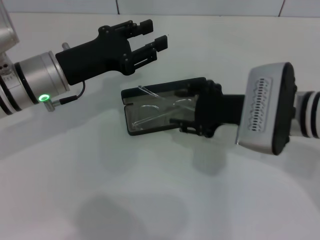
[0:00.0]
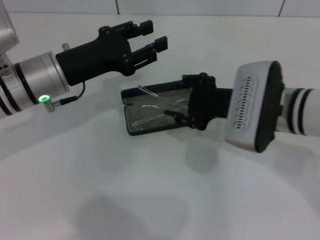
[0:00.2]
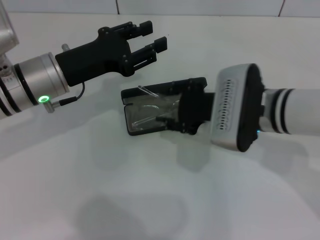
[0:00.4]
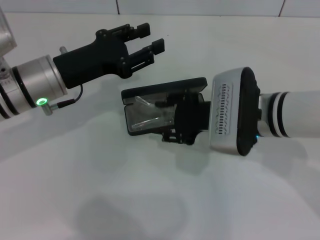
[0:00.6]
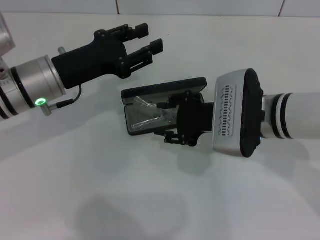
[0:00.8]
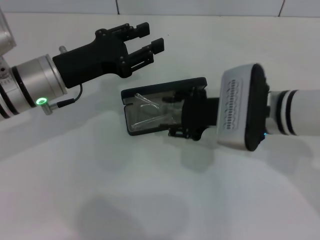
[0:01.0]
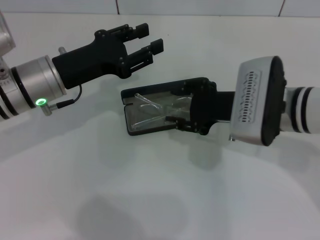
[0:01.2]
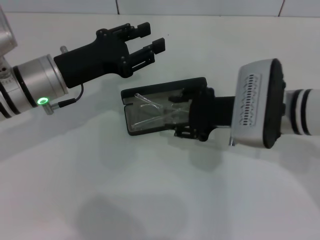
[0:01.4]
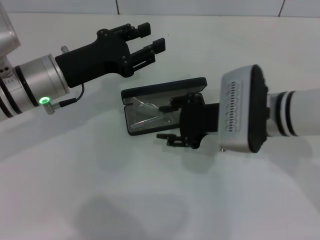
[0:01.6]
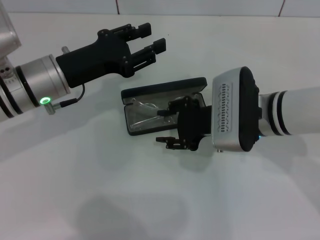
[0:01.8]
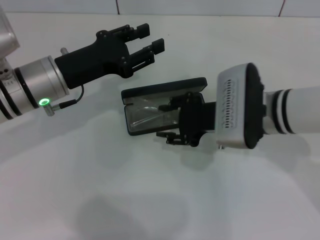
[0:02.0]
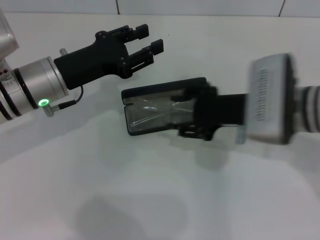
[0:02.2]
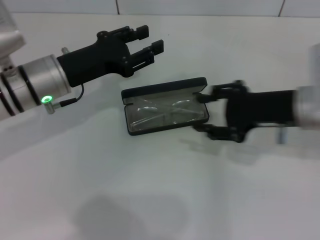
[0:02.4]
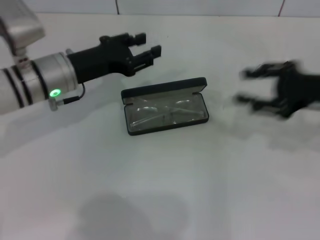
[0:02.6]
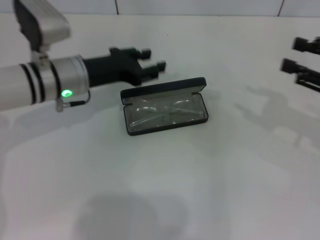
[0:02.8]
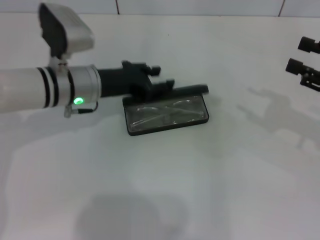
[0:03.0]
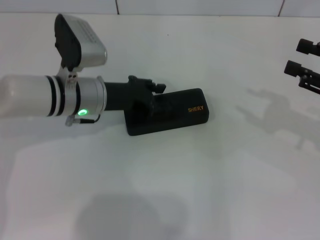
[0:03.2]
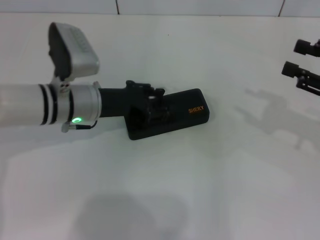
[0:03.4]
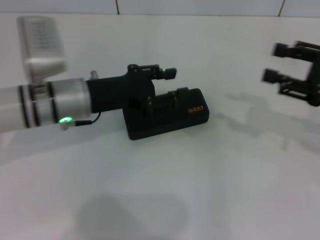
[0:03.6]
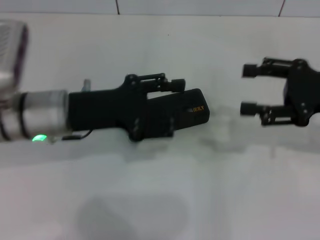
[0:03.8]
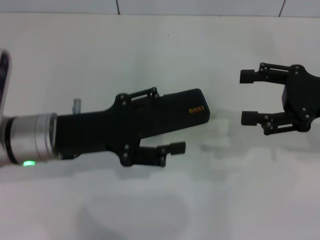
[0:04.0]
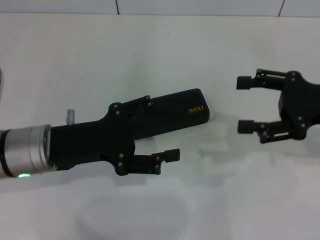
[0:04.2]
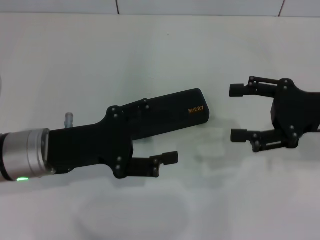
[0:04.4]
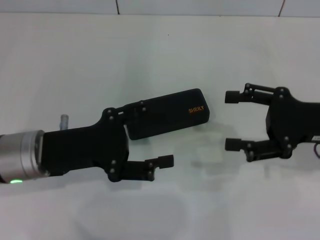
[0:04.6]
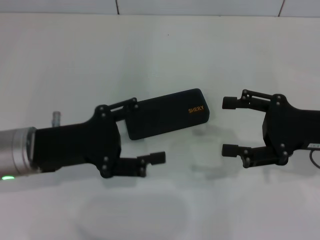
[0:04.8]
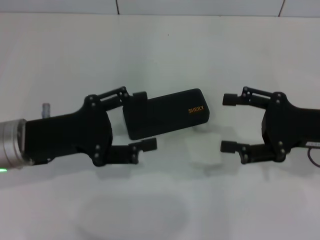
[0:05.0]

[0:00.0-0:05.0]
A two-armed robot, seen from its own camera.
Step, 0:02.2 to 0:03.2: Close the glasses case with your left hand.
0:00.0 to 0:01.6: The grippers make only small movements.
0:01.6 to 0:03.4: The right gripper heads to the right, covering some 20 cm, while the left gripper moves about 5 cm.
0:03.4 to 0:05.0: The right gripper heads to the left, covering roughly 5 cm, and opens; the left gripper travels backward and to the left by some 10 cm, and opens up.

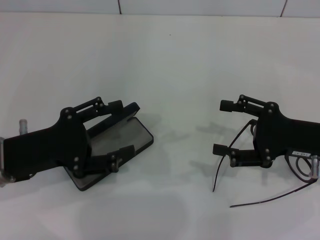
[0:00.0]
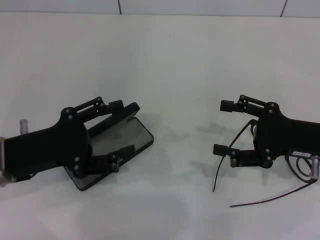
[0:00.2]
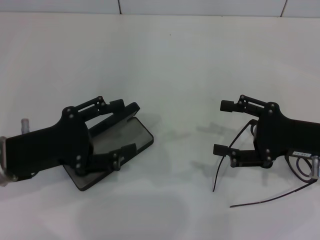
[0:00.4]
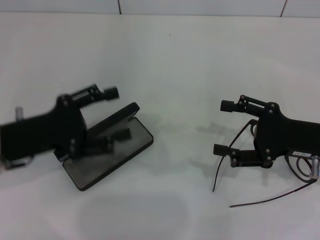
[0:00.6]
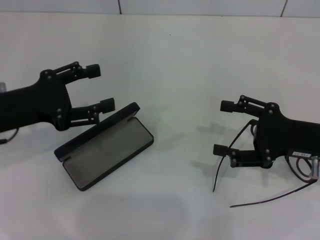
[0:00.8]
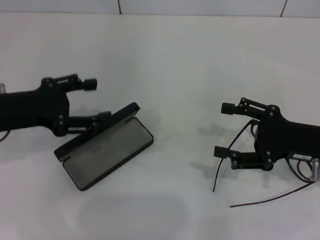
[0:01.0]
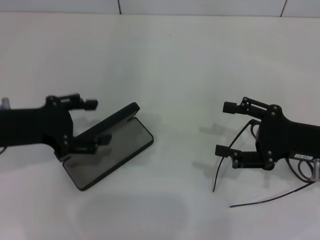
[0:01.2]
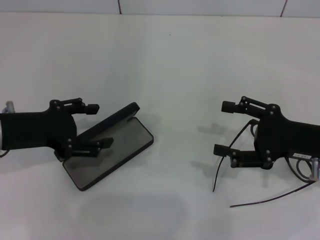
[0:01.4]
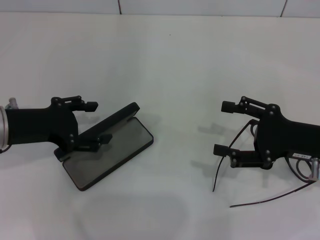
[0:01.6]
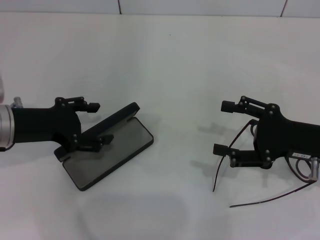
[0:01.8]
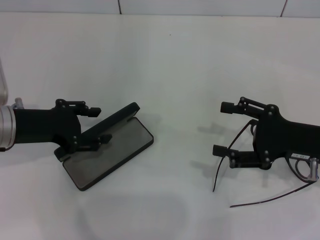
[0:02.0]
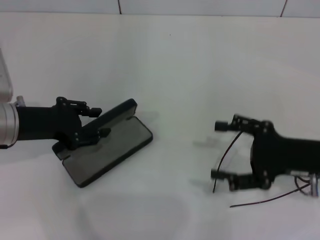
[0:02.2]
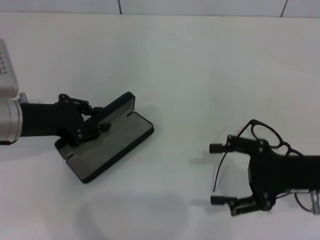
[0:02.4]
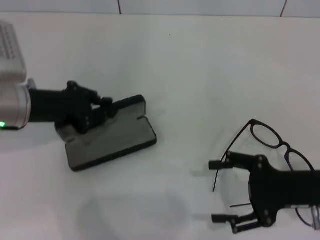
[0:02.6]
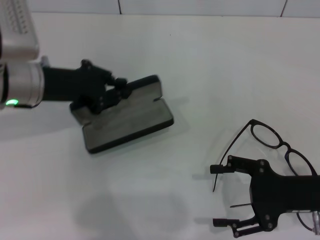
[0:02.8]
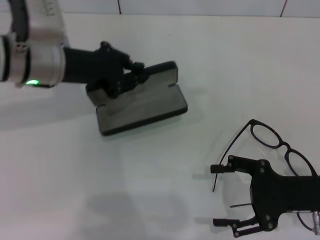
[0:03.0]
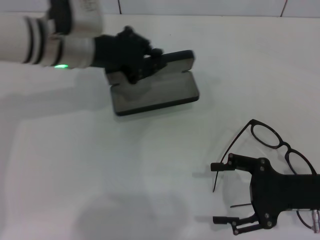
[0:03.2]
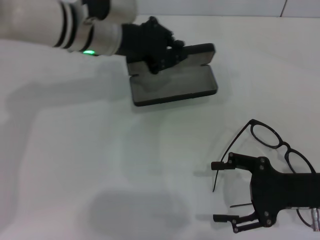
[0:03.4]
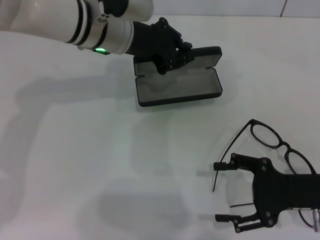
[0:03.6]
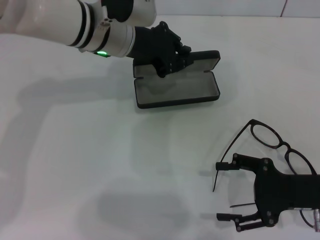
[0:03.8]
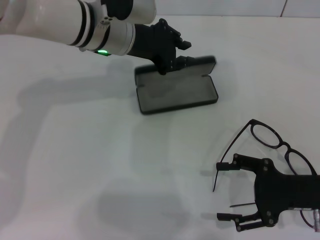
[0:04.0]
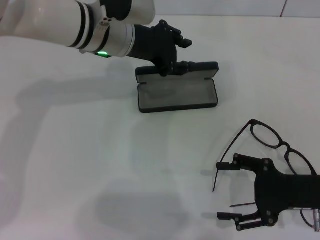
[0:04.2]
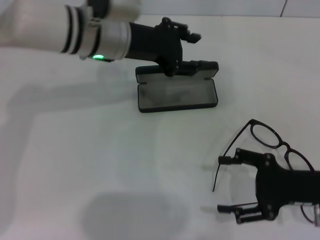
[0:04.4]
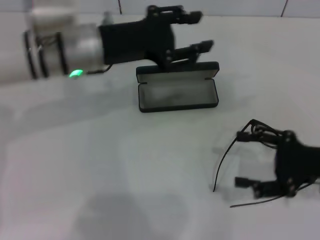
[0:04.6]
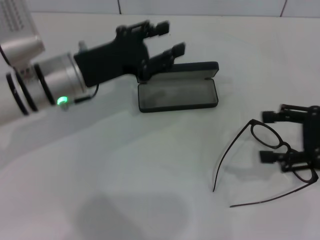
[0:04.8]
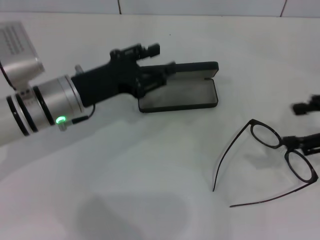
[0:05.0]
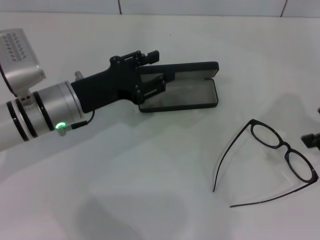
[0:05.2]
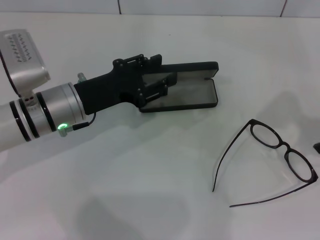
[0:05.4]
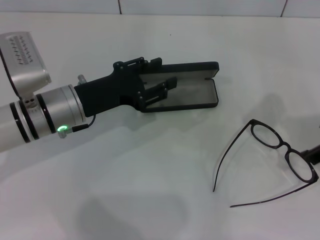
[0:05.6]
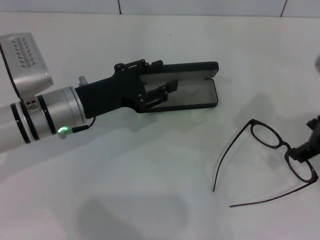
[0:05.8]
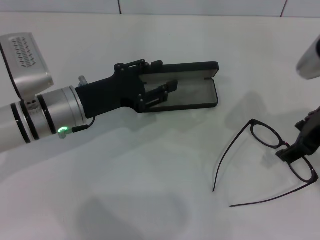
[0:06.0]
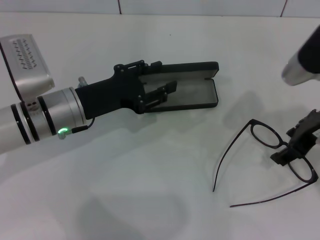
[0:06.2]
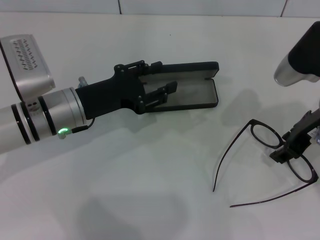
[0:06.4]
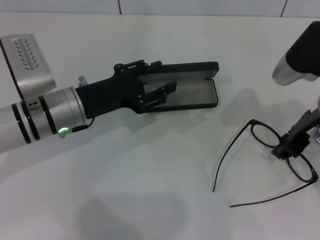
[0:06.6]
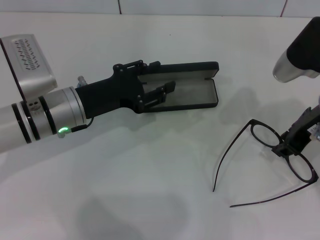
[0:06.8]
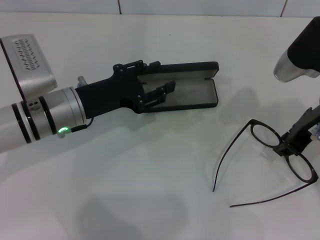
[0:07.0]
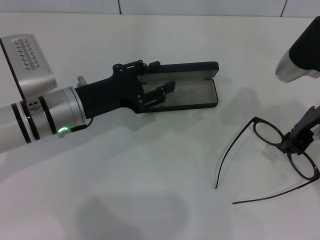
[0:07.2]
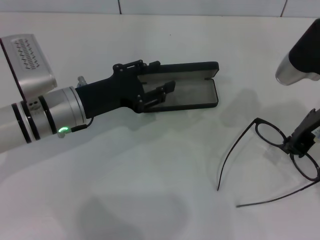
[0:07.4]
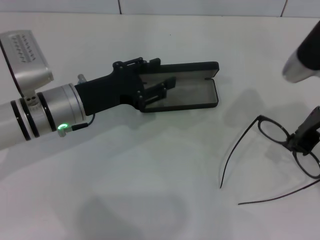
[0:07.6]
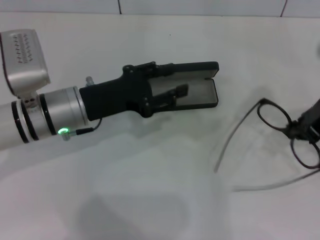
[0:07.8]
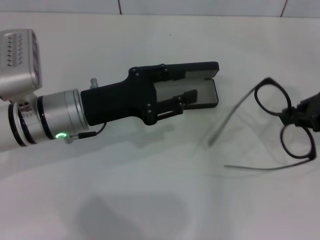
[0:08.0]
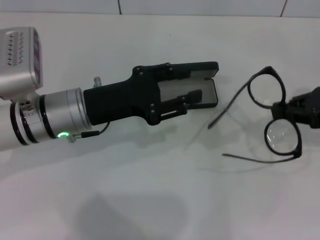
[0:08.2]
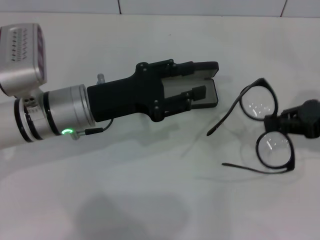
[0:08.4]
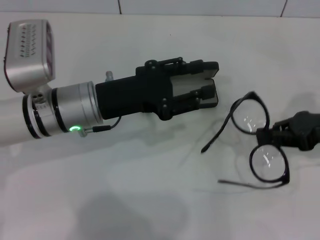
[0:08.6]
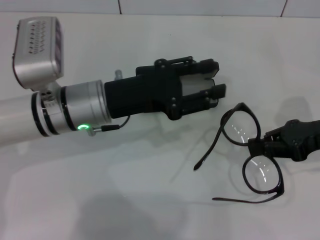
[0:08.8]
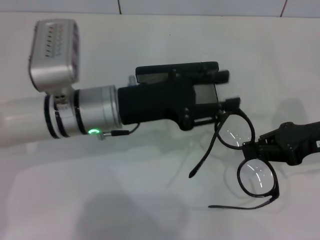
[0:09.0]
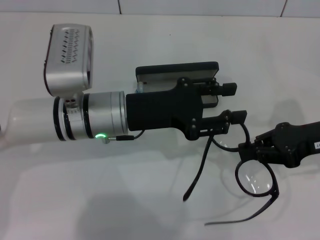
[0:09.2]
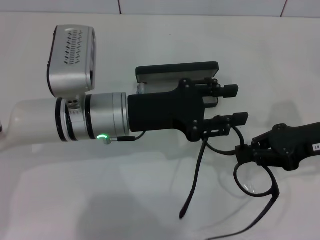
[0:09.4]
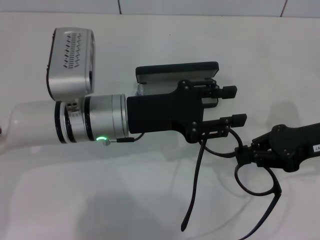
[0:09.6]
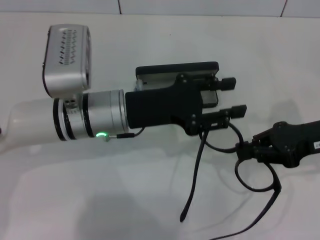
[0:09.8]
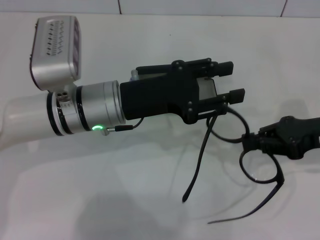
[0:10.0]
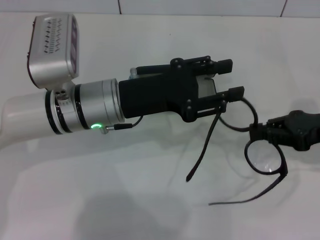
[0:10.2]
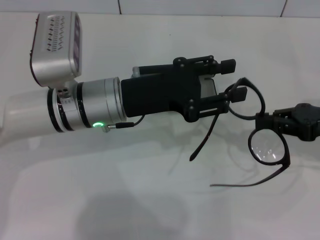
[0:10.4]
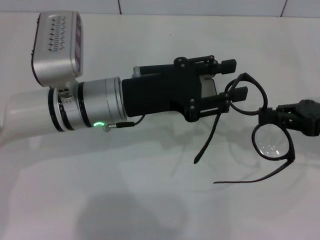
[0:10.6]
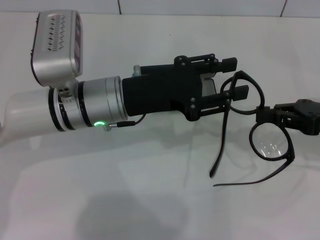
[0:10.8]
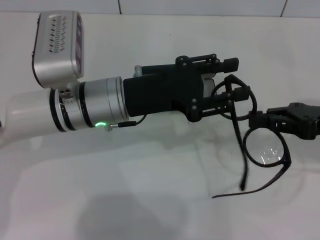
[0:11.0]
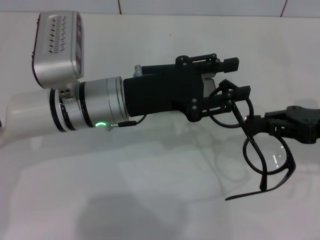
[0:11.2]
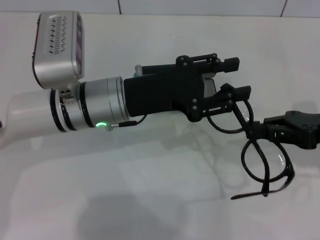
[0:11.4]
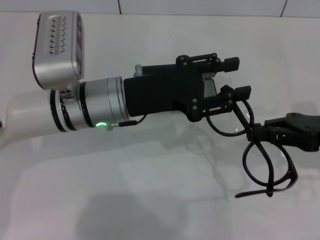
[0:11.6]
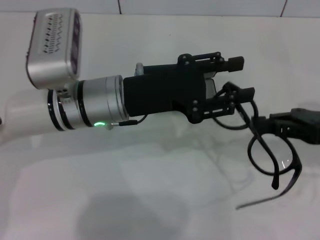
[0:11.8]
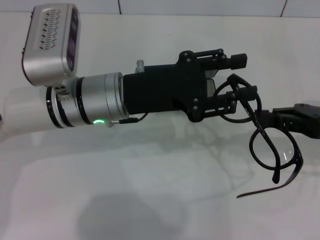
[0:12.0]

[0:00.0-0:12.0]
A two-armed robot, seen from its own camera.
Step, 0:00.0 to 0:02.4: Grab the glasses case with your left hand.
Step, 0:02.6 to 0:04.0: Place the glasses case in the center of the table with your left hand.
Step, 0:04.2 to 0:07.4: Grab the eyeglass frame with your right hand.
0:00.0 to 0:01.6: The left gripper changes place by roughly 5 cm.
0:01.6 to 0:03.0: The left gripper shifts some 10 cm forward and to the right, and closes its fingers.
0:03.0 to 0:04.4: The left gripper travels to the right by about 10 cm.
0:04.4 to 0:06.0: The right gripper shifts approximately 15 cm upward and forward; the left gripper goes about 15 cm downward, backward and to the left.
0:06.0 to 0:07.6: The right gripper closes its fingers.
0:07.6 to 0:09.0: The right gripper shifts about 10 cm to the right and downward, while the left gripper travels to the right by about 5 cm.
0:09.0 to 0:10.4: The grippers stay close to where they were, moving slightly.
0:10.4 to 0:12.0: The grippers stay close to where they were, moving slightly.

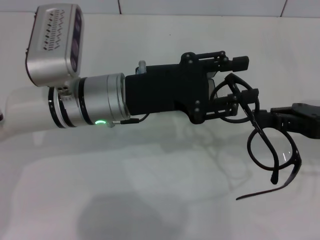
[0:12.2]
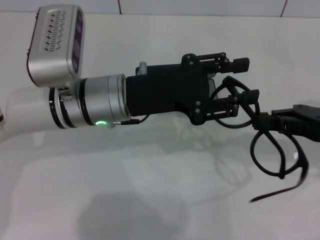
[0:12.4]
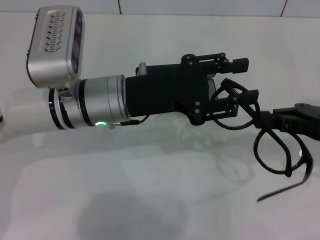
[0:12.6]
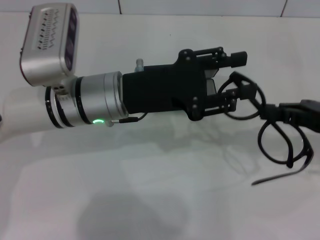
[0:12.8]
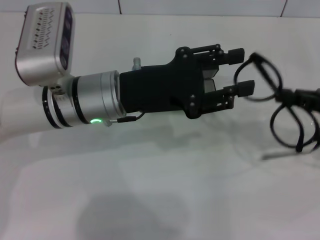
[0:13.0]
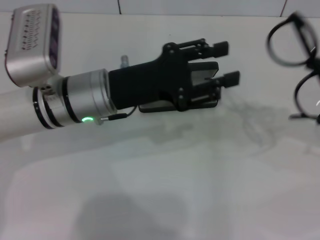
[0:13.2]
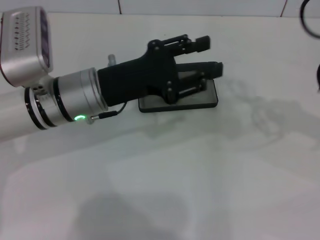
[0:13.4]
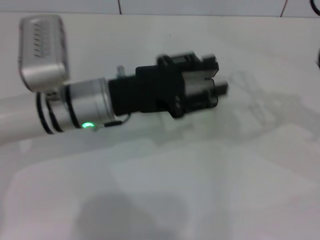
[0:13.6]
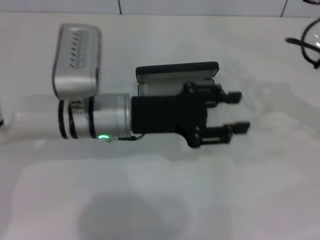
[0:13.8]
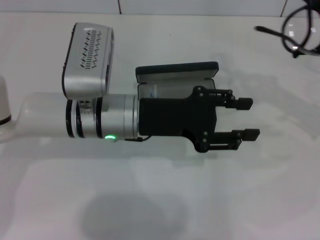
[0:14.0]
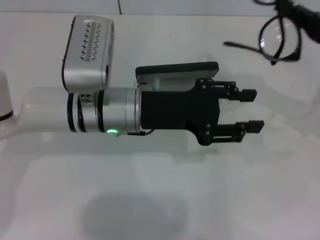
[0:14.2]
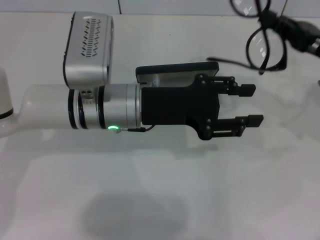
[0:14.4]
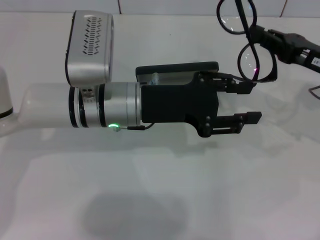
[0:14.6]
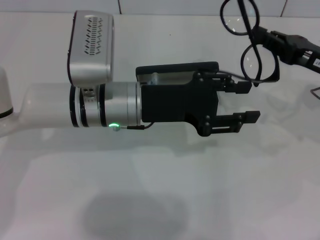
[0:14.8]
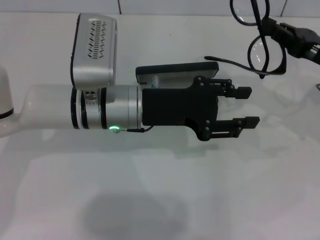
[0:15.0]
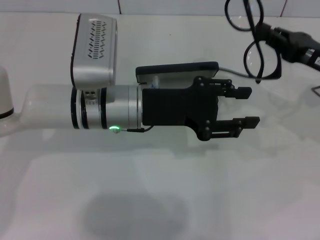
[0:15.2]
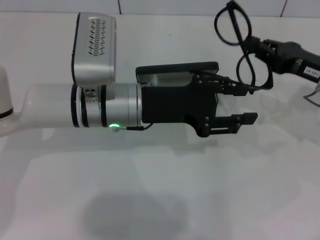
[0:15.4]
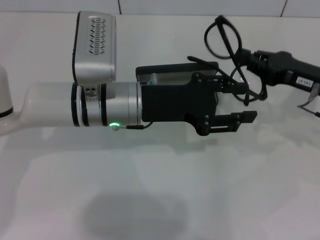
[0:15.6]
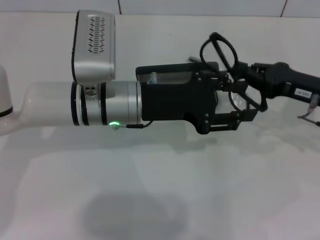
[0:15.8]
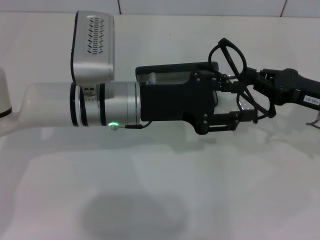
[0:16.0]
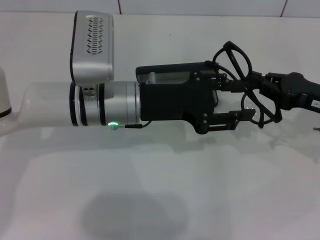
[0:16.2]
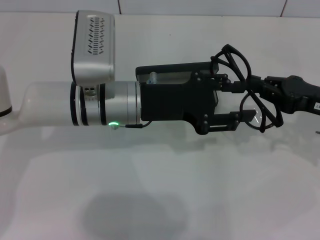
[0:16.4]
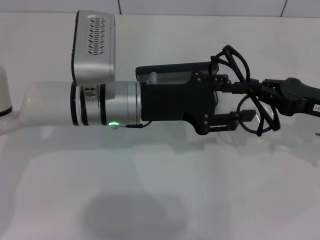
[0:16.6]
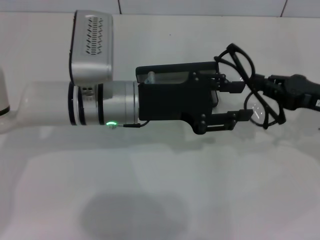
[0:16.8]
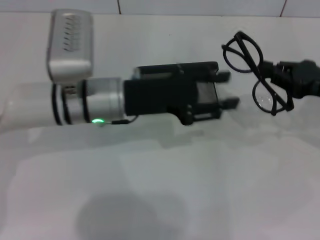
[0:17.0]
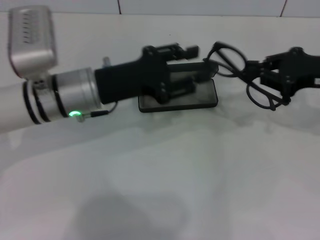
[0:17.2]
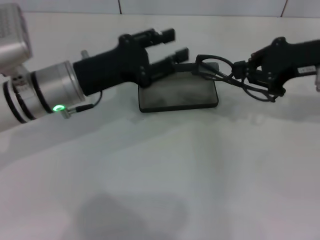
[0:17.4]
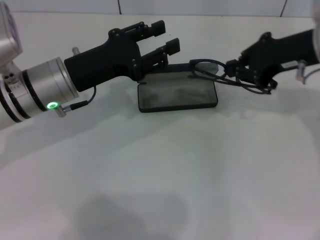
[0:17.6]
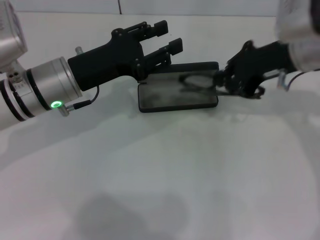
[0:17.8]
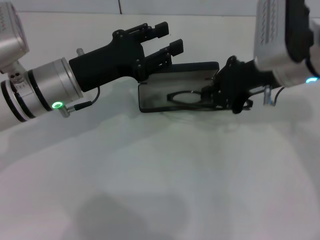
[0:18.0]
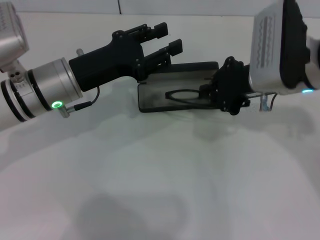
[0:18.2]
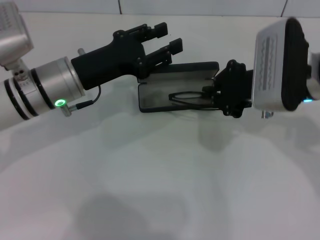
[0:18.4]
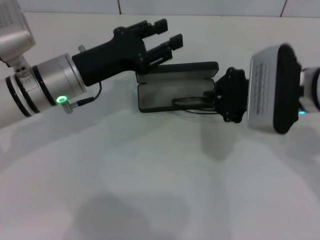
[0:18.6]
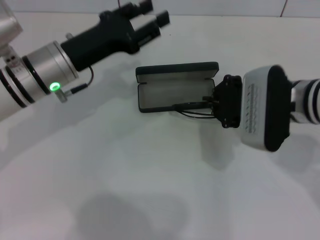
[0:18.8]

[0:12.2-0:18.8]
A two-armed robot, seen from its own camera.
Step, 0:12.2 to 0:16.8: Fold the frame with your left hand.
0:13.8 to 0:15.4: The right gripper travels to the left by roughly 5 cm.
0:15.4 to 0:17.2: The left gripper goes some 5 cm to the left; the right gripper goes approximately 5 cm upward.
0:17.2 to 0:18.8: The right gripper goes approximately 10 cm to the left.
